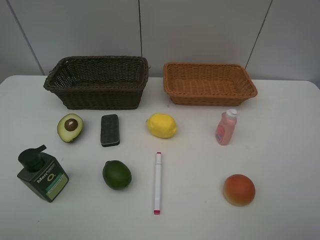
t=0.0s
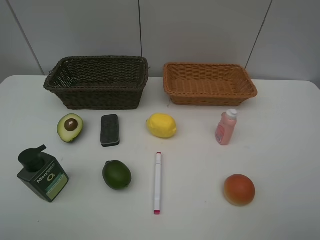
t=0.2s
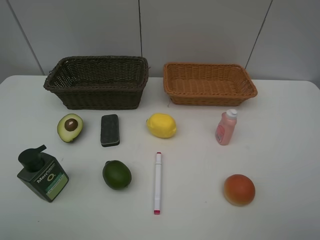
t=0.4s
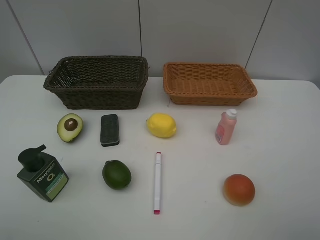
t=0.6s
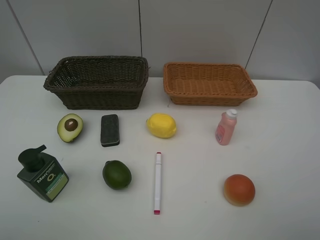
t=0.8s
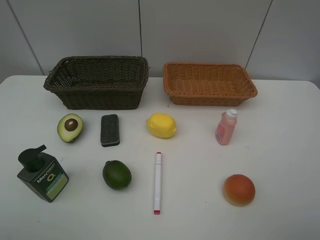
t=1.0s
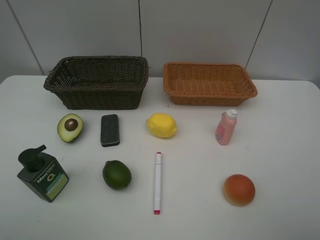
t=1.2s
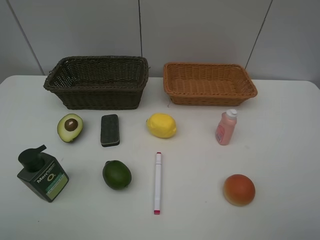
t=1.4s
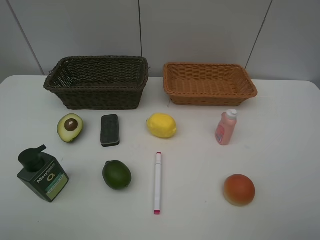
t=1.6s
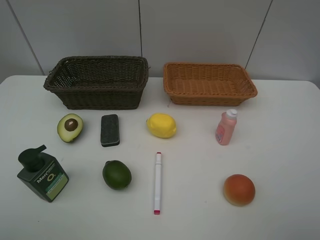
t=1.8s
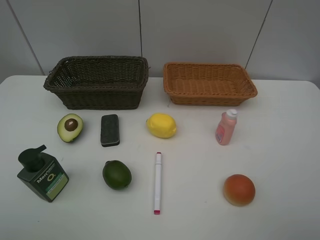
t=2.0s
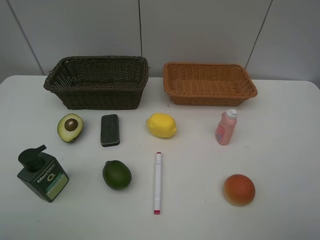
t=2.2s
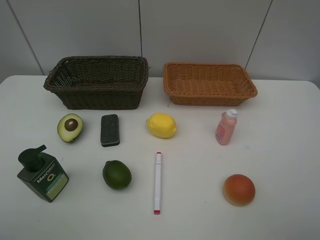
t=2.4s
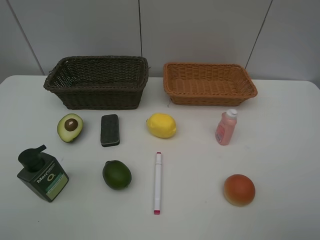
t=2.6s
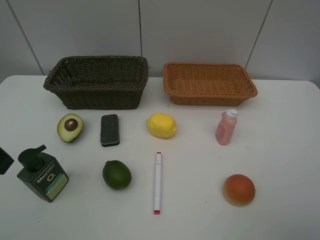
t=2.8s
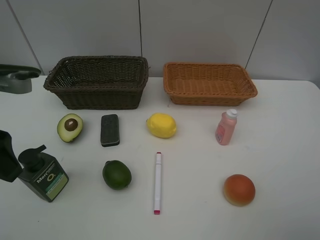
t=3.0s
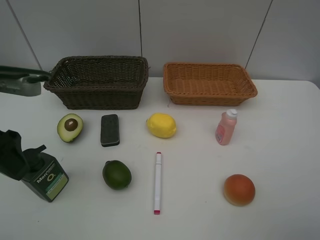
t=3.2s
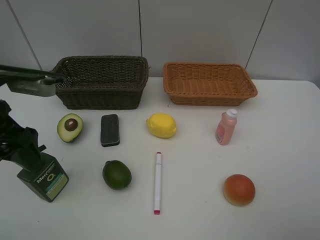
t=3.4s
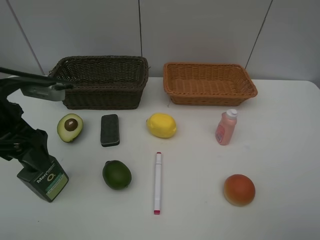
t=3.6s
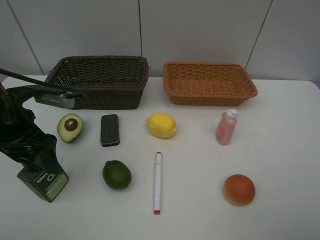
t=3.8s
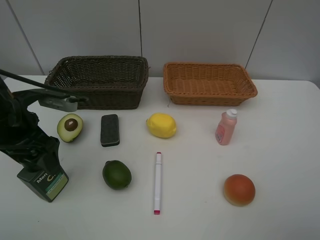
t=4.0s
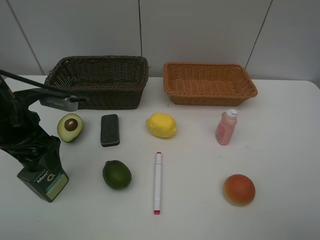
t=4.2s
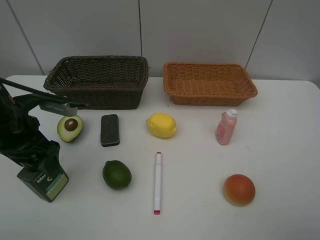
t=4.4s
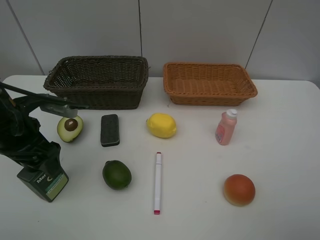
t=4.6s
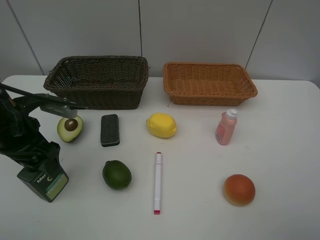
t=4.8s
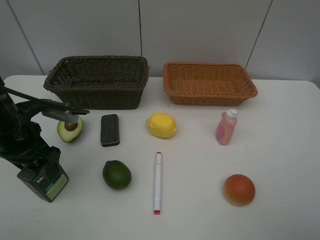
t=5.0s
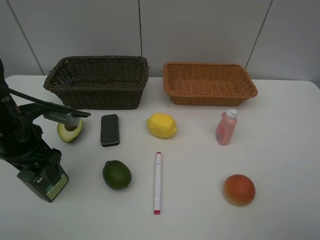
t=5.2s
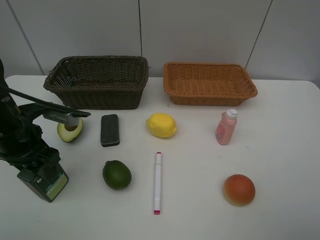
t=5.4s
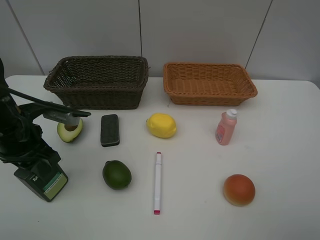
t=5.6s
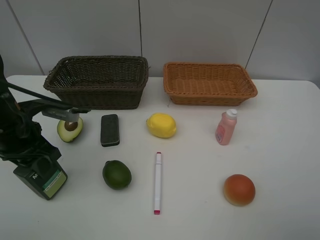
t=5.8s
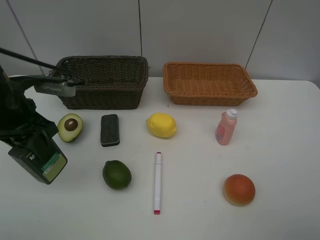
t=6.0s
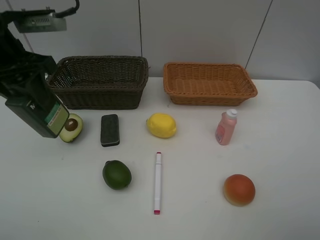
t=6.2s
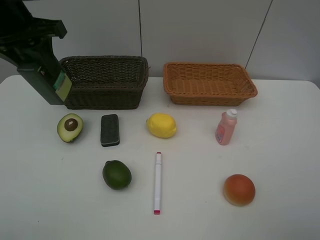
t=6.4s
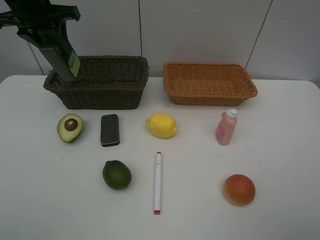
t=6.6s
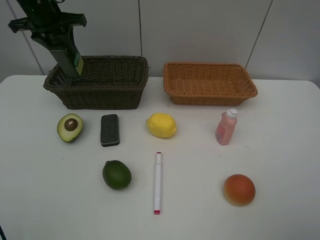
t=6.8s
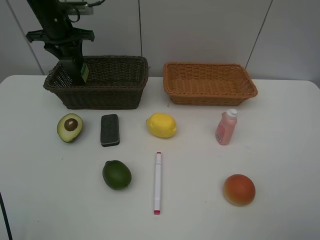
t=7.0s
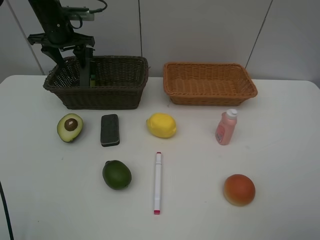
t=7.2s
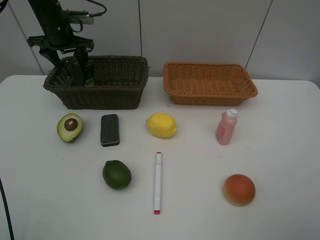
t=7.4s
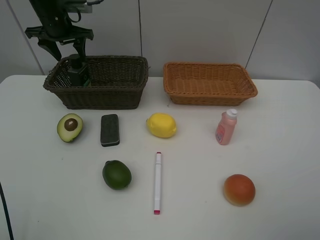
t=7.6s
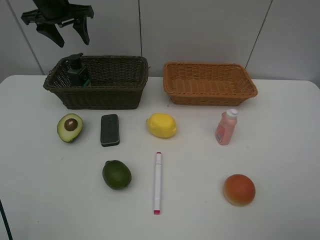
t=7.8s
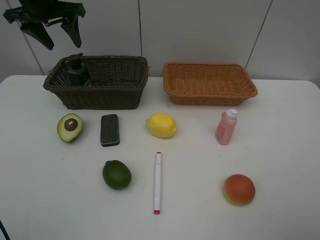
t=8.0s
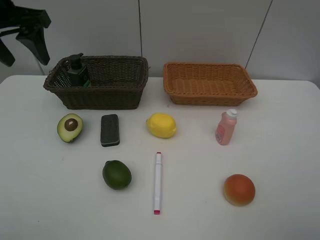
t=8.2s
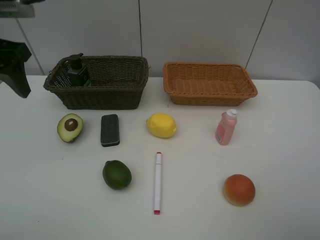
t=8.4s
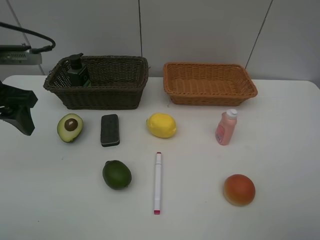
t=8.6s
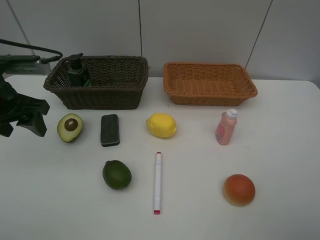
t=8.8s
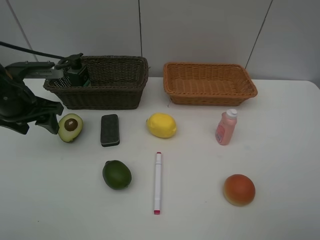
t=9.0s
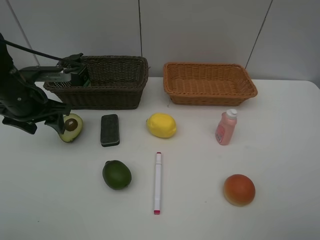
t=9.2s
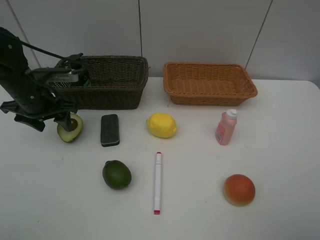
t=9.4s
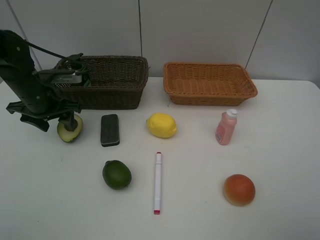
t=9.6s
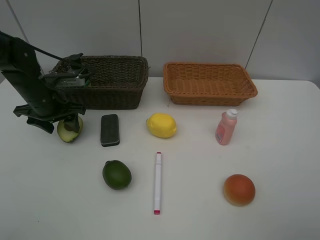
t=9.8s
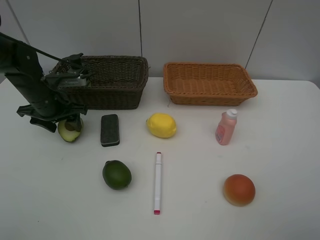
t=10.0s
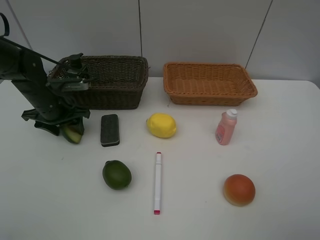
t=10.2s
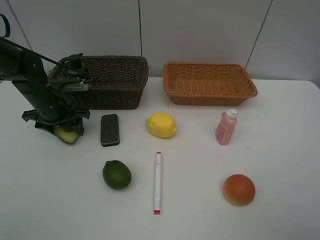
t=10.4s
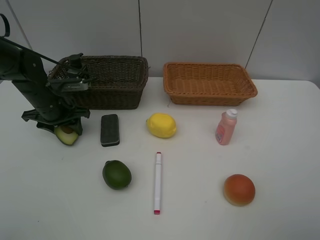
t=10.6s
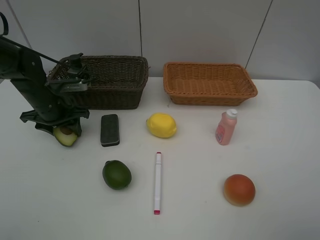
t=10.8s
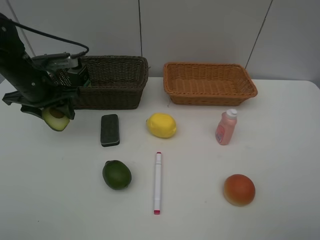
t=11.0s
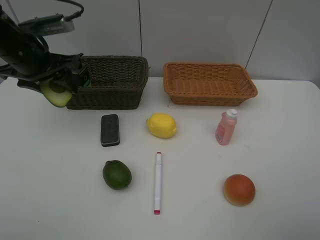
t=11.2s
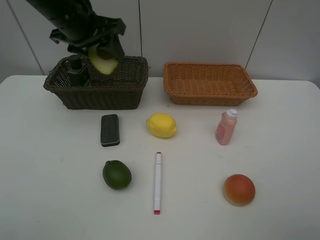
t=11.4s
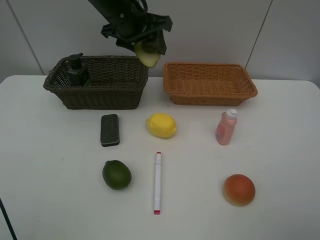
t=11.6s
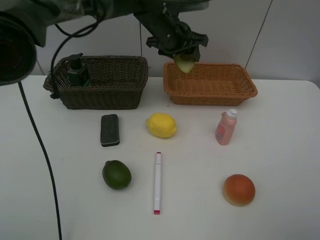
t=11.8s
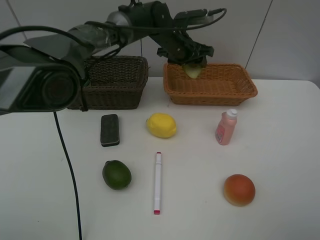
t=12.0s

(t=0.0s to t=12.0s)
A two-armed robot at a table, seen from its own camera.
Task of the whole recording: Place multiple objects separately in different baskets.
Step, t=0.0s - t=5.8s: Pick up the hard facial cleanser with left gripper.
Step, t=6.0s - t=7.6s: Place the hard facial cleanser in the dark basket with left gripper.
Step, t=7.8s - t=10.8s: Pick up the avocado with left gripper.
t=0.0s - t=1.6s: Both grippers stay about where they are.
t=1.6s - t=3.0s: The left gripper shifts approximately 15 cm forward.
t=3.0s - t=4.4s: The left gripper shifts roughly 10 cm downward and forward.
t=4.4s - t=6.0s: The left gripper travels upward by roughly 5 cm, and closes up.
t=6.0s - t=7.6s: The left gripper heads forward, covering roughly 25 cm, and opens its fingers.
t=7.6s - t=9.0s: The left gripper moves backward, about 20 cm.
t=9.0s - t=10.4s: The left gripper goes some 10 cm downward and forward.
t=10.4s - t=12.0s: The left gripper heads to the right and forward, covering roughly 30 cm.

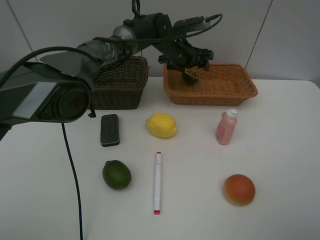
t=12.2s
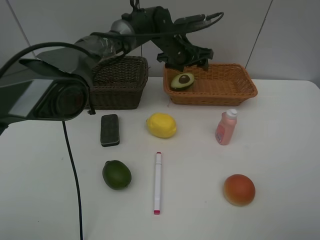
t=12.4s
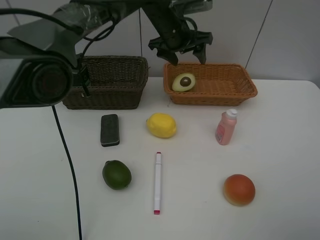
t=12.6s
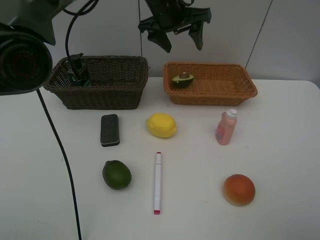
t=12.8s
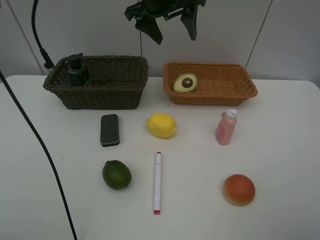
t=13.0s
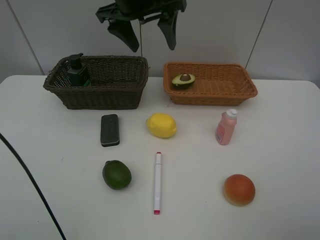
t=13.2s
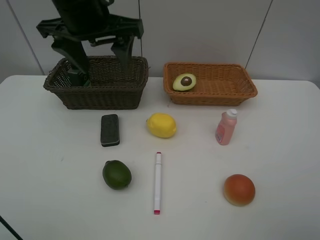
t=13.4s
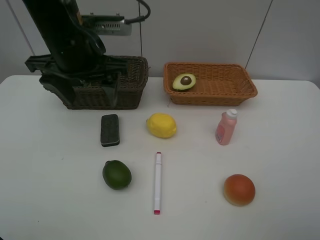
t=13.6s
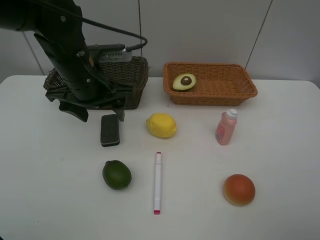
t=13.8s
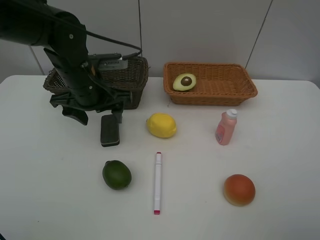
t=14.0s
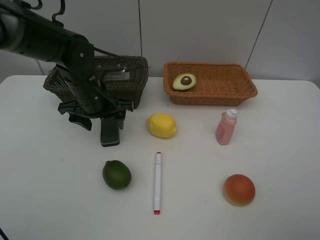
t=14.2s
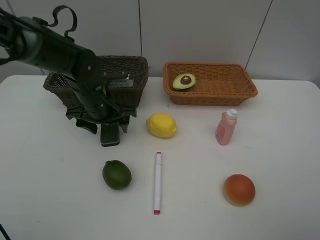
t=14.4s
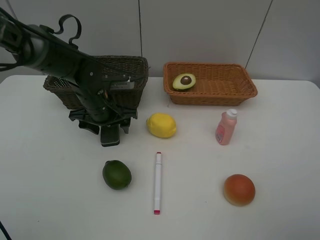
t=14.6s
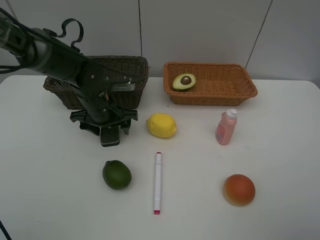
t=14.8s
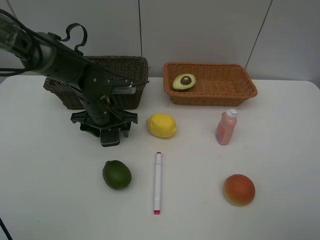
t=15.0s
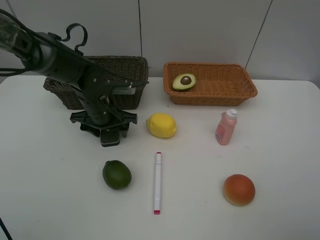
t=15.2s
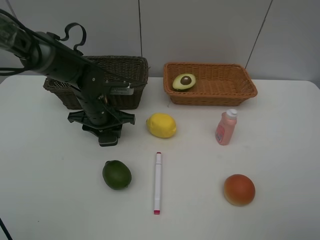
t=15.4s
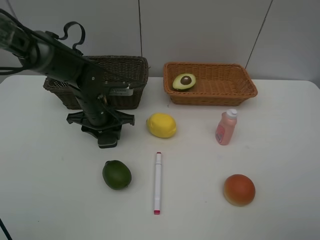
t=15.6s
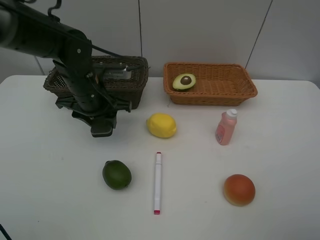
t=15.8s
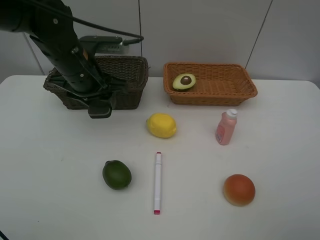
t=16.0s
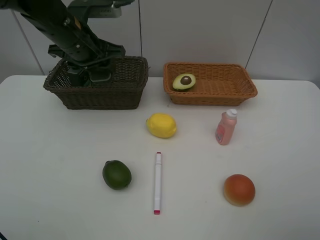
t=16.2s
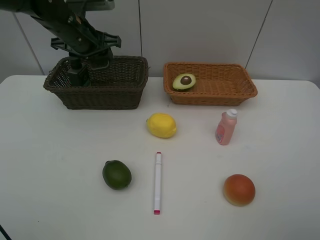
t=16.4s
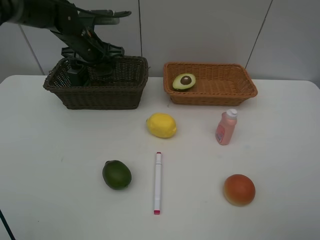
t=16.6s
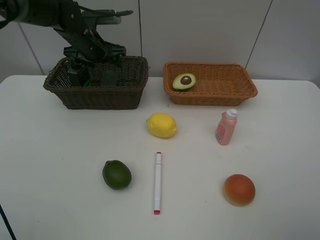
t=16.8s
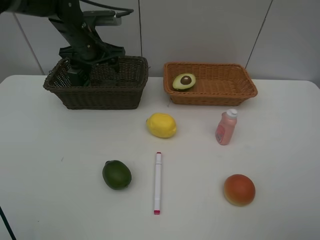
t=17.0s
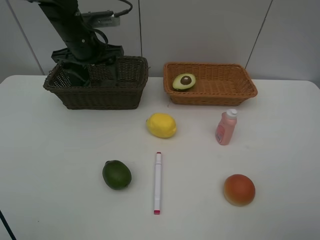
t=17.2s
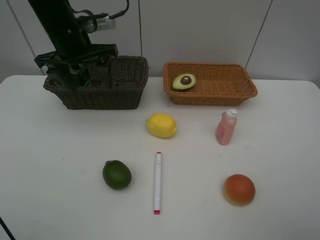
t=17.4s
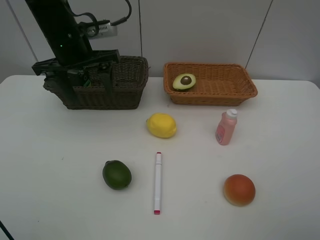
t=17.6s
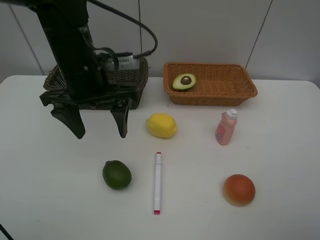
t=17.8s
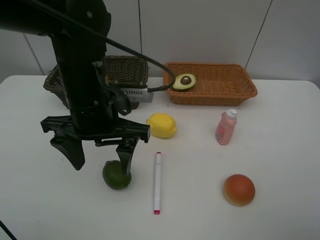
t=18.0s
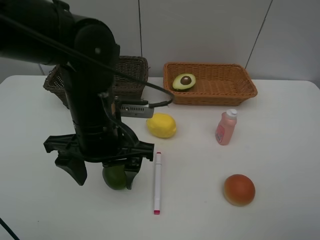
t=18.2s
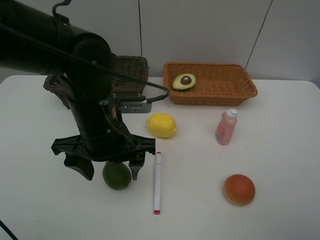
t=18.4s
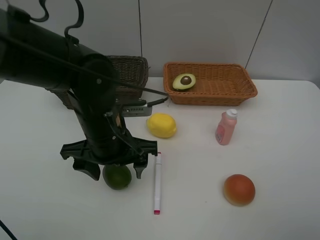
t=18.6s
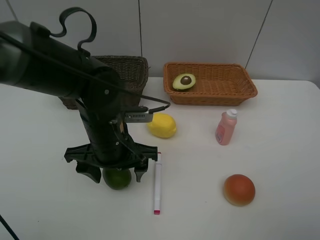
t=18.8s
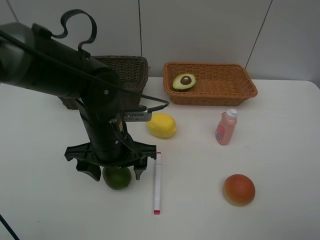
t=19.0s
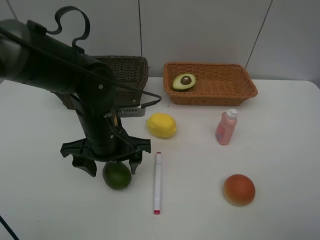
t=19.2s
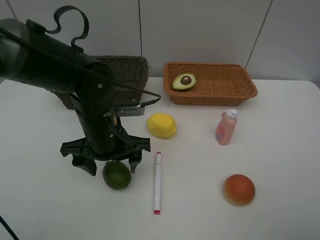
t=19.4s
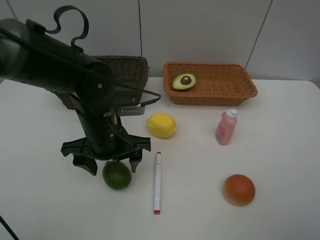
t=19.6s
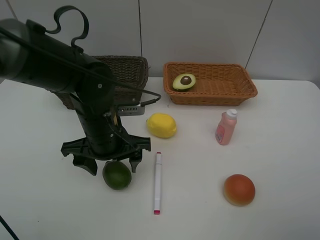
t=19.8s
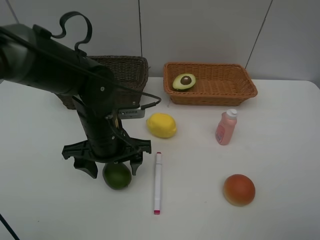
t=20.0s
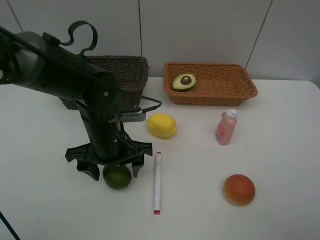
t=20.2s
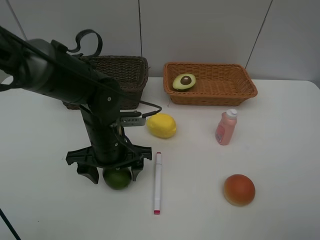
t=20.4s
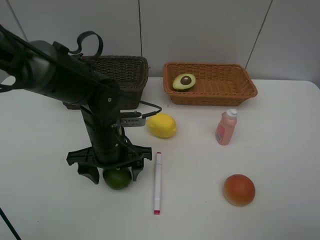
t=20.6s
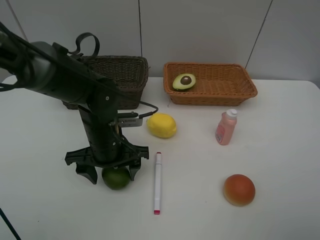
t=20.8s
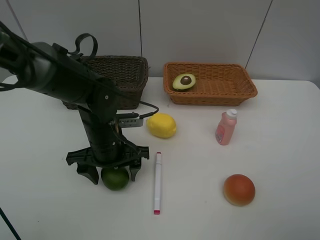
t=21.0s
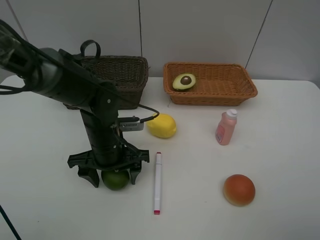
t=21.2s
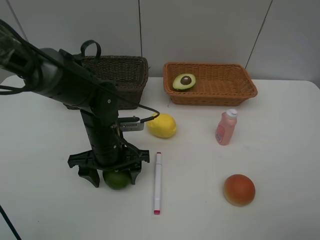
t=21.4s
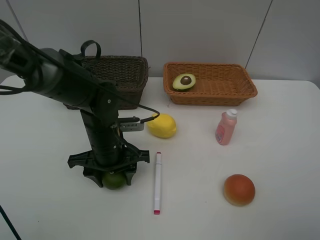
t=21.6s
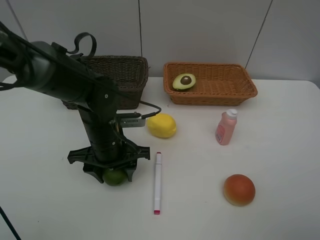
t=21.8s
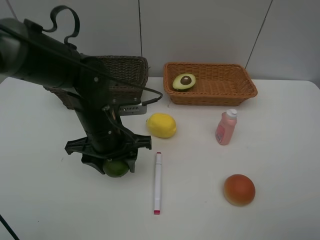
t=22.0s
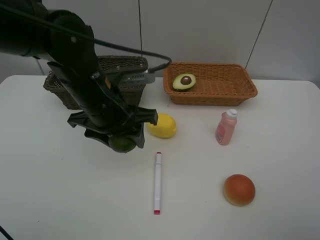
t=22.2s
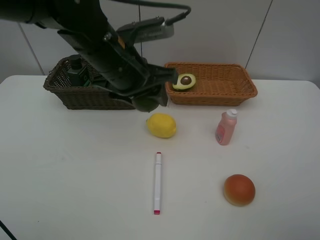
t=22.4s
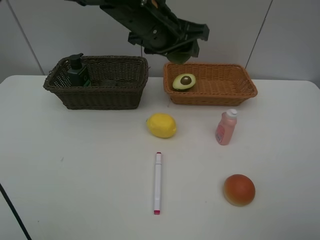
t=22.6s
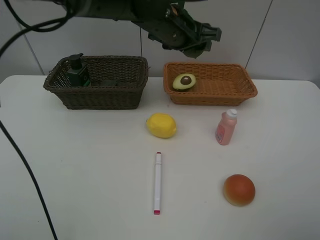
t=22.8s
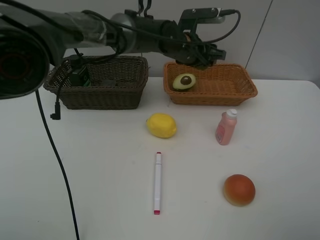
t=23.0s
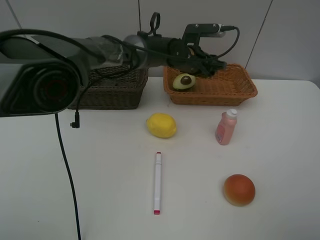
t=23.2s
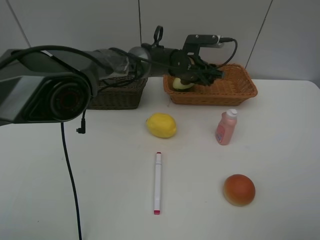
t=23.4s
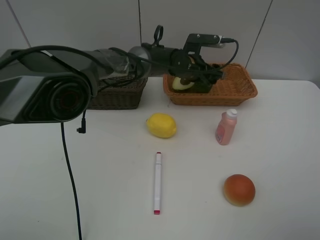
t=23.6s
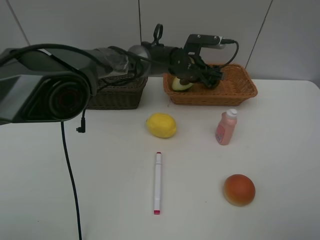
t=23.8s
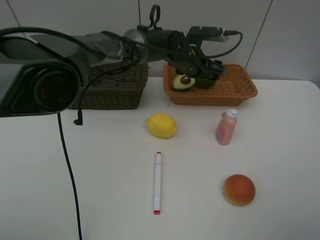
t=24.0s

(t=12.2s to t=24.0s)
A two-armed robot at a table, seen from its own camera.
Task of the whole recording: Place multiple objects separately in different baskets.
Step, t=12.6s - t=15.6s: Pick up blackboard eraser with left gripper.
Step, t=15.8s - t=17.0s: Place the blackboard eraser in the dark basket with left gripper.
Step, t=17.2s - t=22.0s: Pick up the lime with left gripper.
t=12.2s - t=13.6s: The left gripper travels backward, to the left and upward by approximately 30 cm.
t=13.6s - t=15.2s: The left gripper moves downward, approximately 20 cm.
t=15.2s - t=16.6s: The left gripper is displaced forward and upward by approximately 15 cm.
t=16.6s - t=18.2s: The left gripper heads backward, covering approximately 25 cm.
t=18.2s - t=19.6s: The left gripper shifts approximately 5 cm downward.
t=19.6s - t=21.0s: The grippers stay close to where they were, moving slightly.
t=21.0s - t=22.6s: The left gripper travels upward, forward and to the right by about 20 cm, and closes.
t=22.6s - t=24.0s: The left gripper moves downward, forward and to the right, about 15 cm, and opens its fingers.
